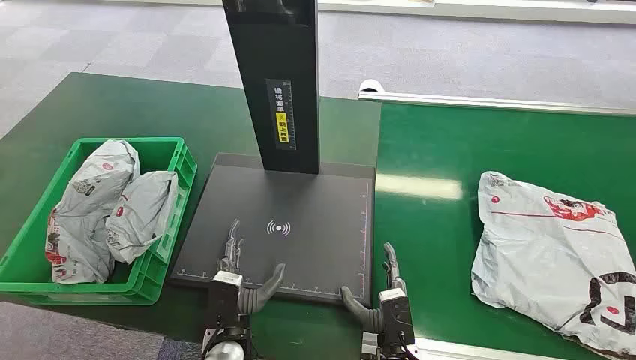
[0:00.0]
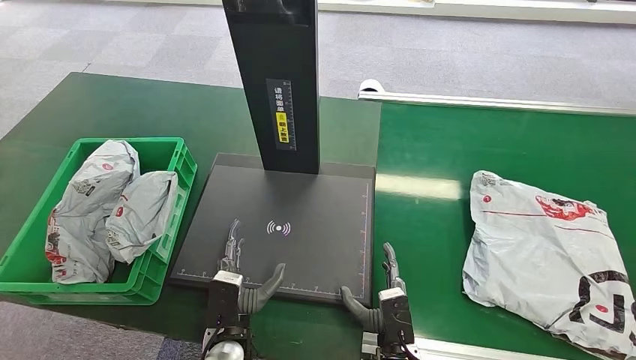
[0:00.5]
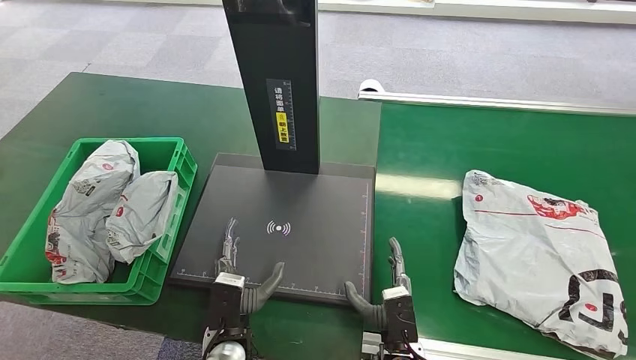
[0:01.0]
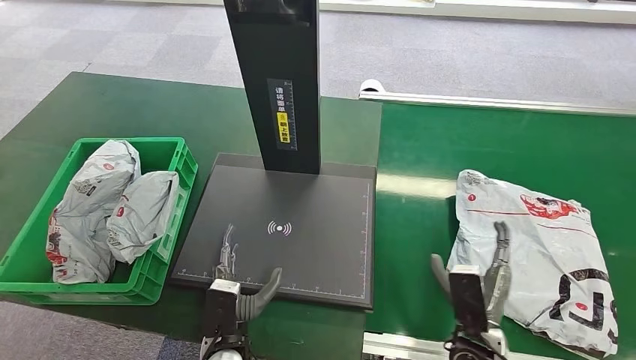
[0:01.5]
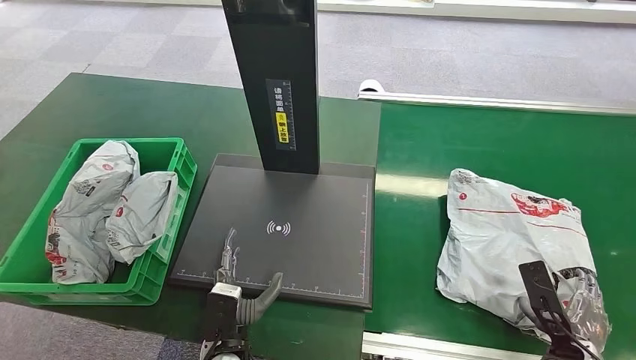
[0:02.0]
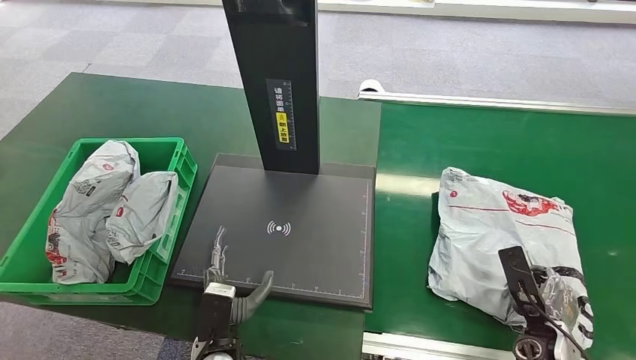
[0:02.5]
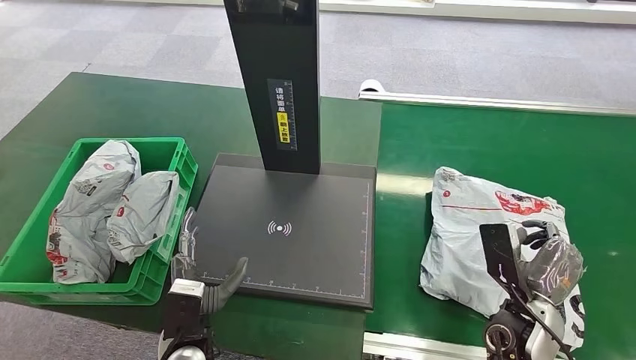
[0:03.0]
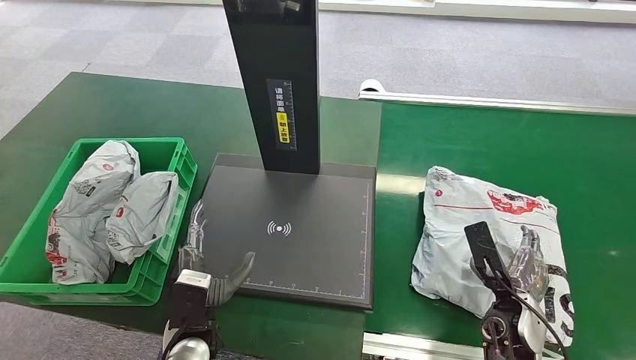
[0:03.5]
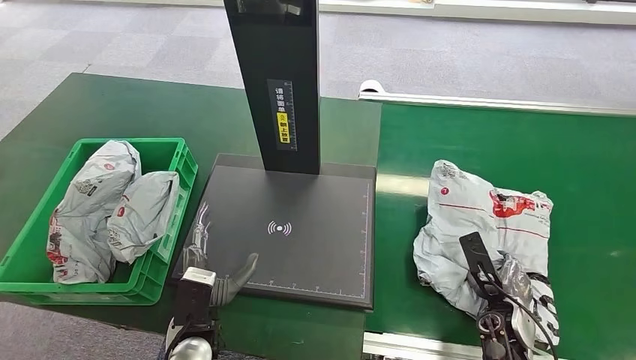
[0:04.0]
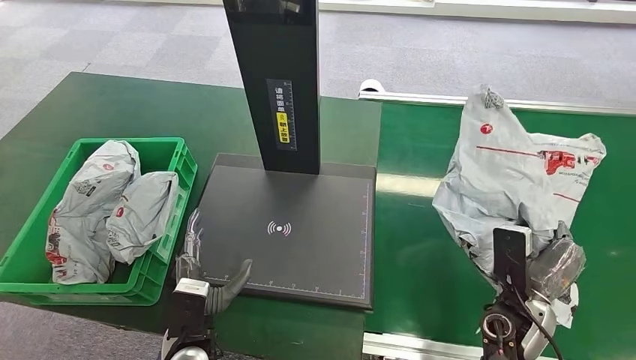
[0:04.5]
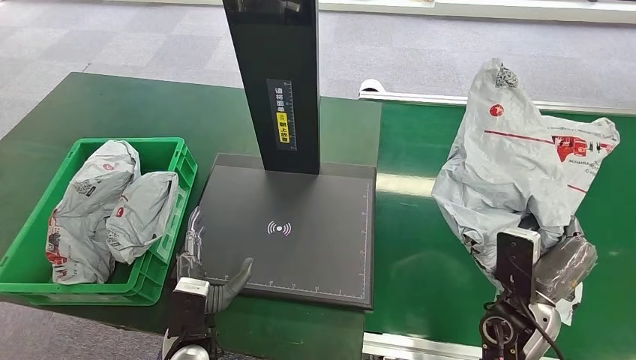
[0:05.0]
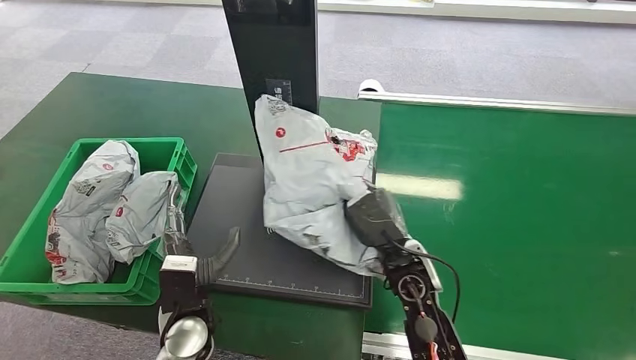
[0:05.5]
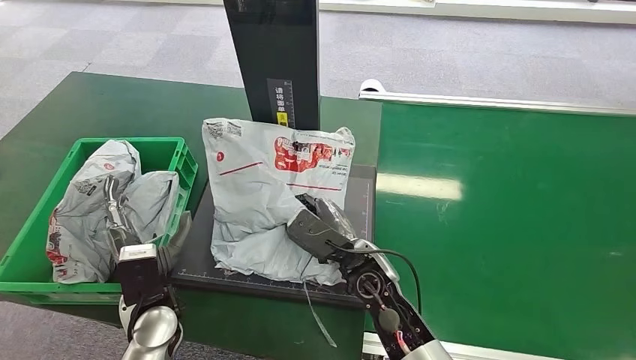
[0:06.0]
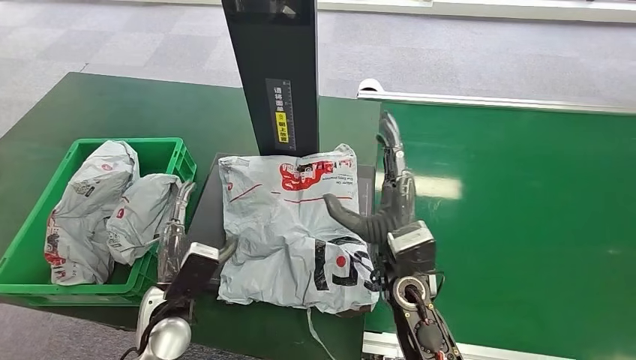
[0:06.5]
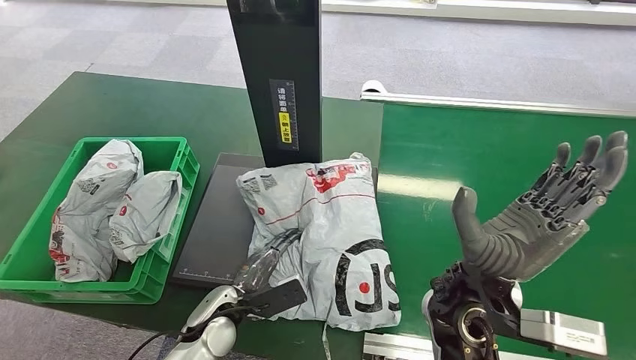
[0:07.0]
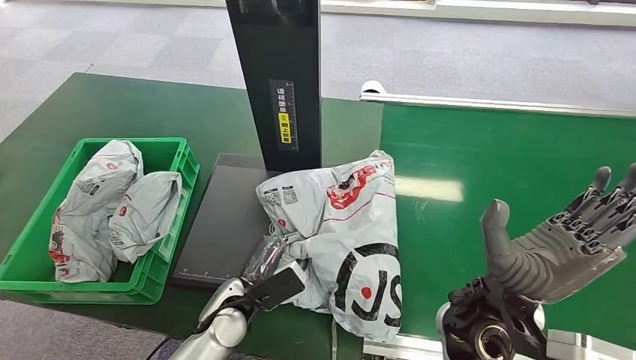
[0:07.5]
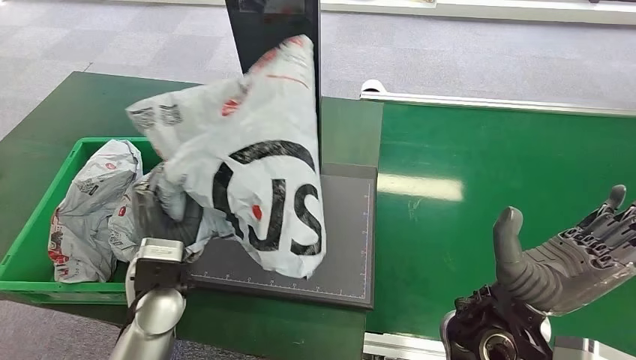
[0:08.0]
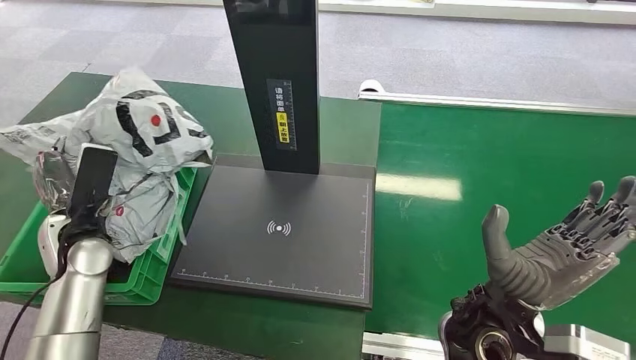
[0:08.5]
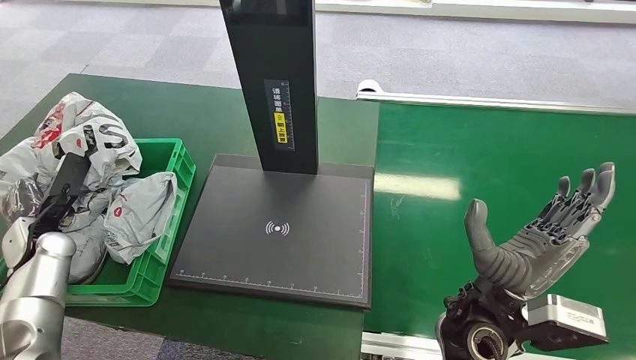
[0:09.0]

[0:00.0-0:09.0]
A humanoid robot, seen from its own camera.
Step, 0:00.0 to 0:04.5: Pick up the package from the conveyor belt.
Step, 0:05.0 to 0:07.0: Place the package onto the inbound machine.
Step, 0:07.5 to 0:08.0: Pick up the package from the inbound machine.
Step, 0:08.5 to 0:09.0: Place the package into the parcel locker.
0:02.0 to 0:04.5: The right hand goes about 15 cm to the left, forward and upward; the left hand shifts by approximately 5 cm.
